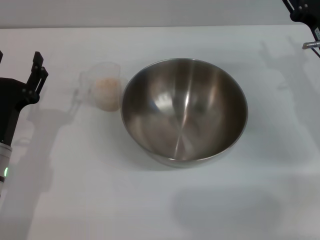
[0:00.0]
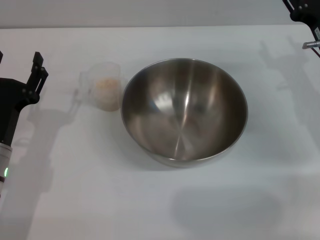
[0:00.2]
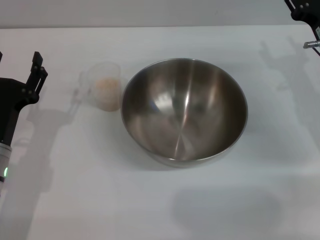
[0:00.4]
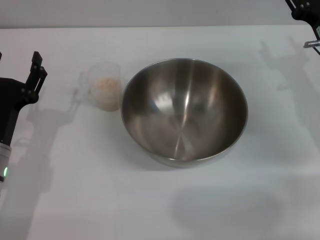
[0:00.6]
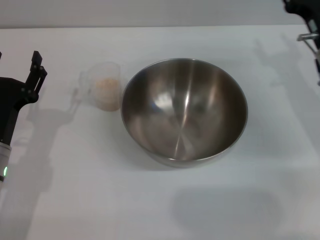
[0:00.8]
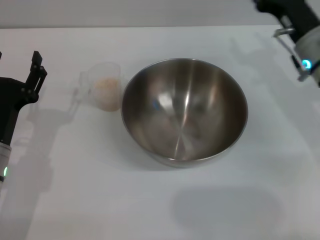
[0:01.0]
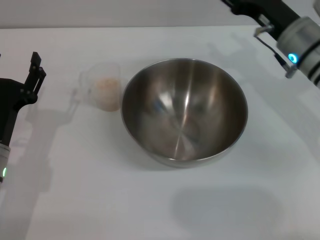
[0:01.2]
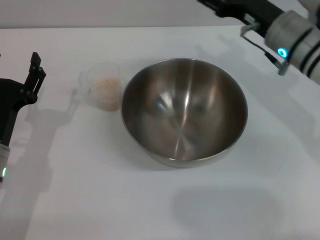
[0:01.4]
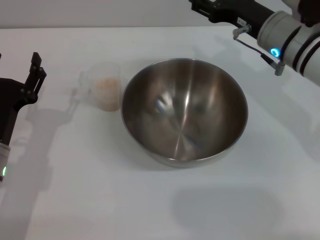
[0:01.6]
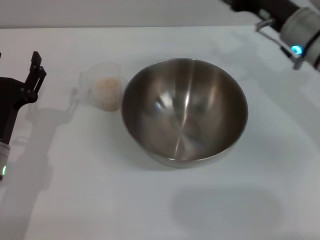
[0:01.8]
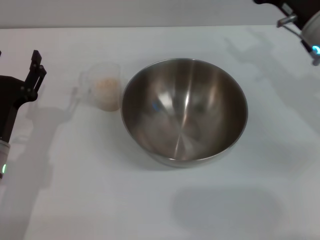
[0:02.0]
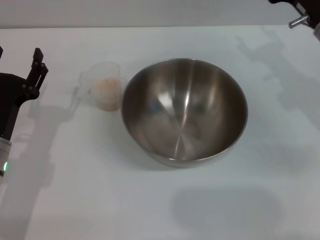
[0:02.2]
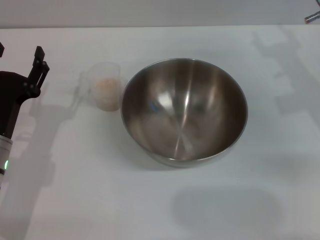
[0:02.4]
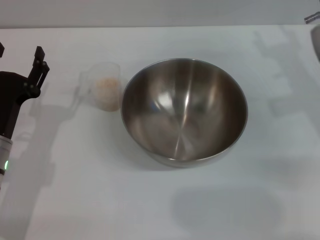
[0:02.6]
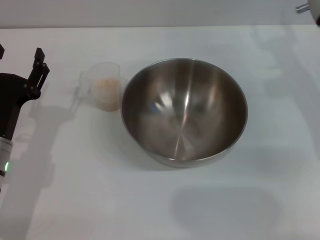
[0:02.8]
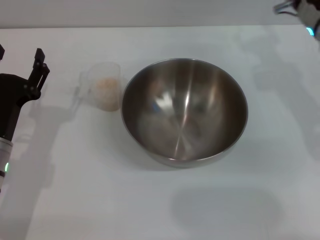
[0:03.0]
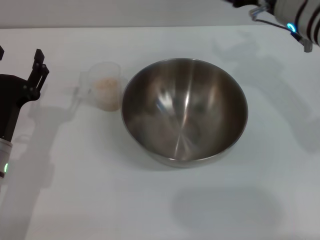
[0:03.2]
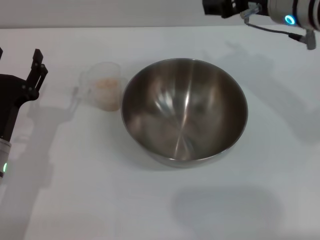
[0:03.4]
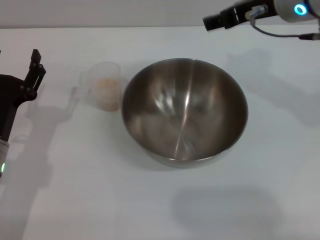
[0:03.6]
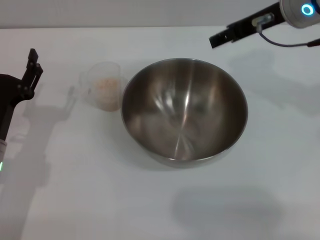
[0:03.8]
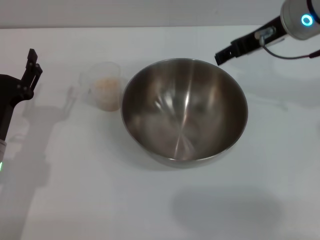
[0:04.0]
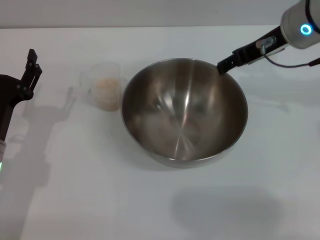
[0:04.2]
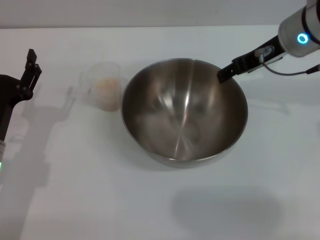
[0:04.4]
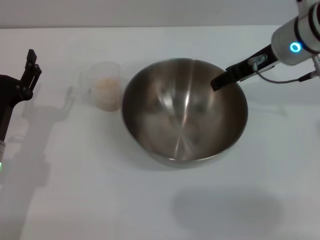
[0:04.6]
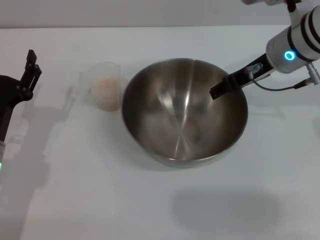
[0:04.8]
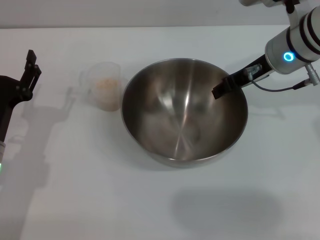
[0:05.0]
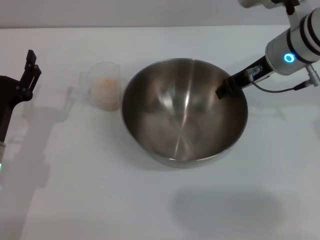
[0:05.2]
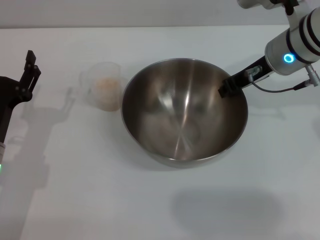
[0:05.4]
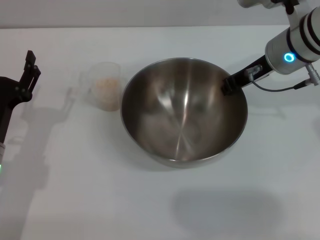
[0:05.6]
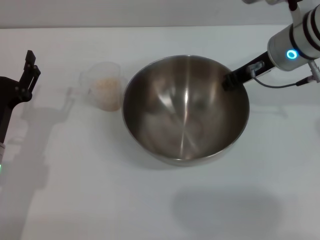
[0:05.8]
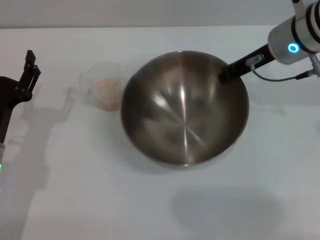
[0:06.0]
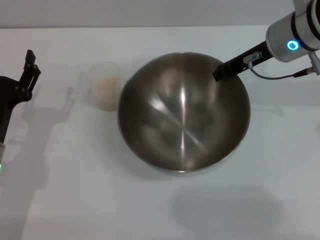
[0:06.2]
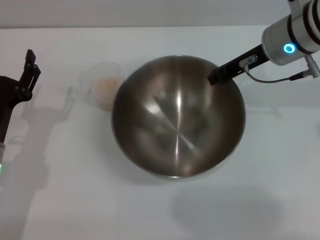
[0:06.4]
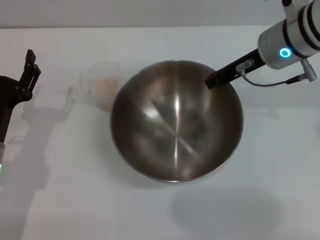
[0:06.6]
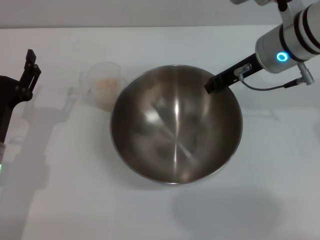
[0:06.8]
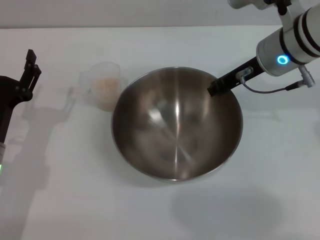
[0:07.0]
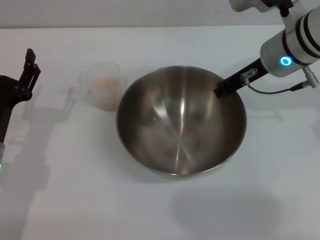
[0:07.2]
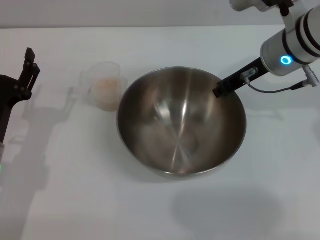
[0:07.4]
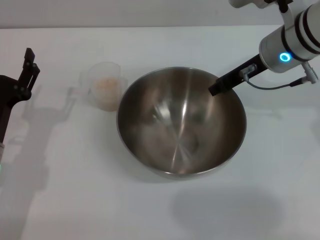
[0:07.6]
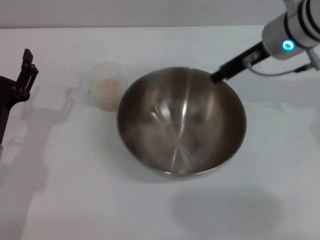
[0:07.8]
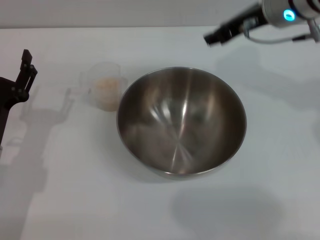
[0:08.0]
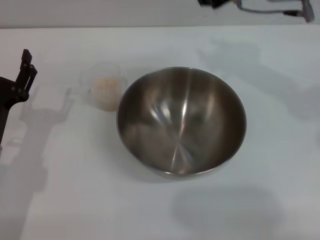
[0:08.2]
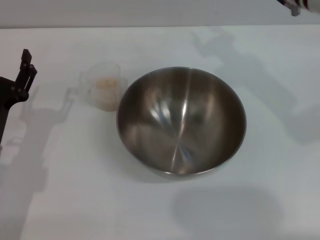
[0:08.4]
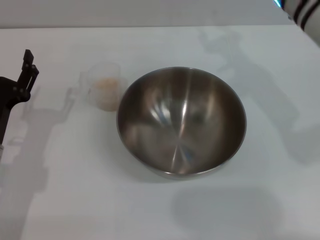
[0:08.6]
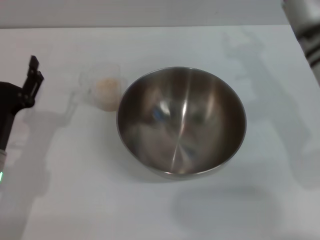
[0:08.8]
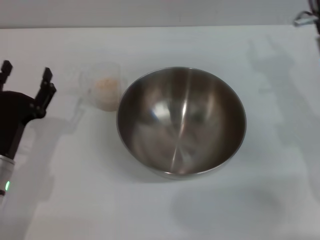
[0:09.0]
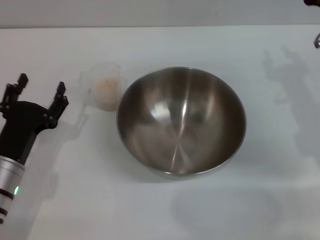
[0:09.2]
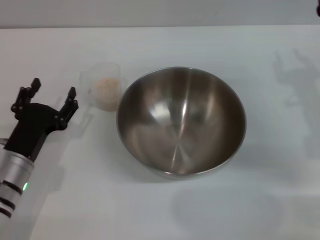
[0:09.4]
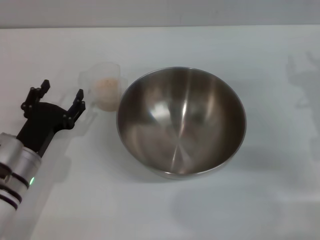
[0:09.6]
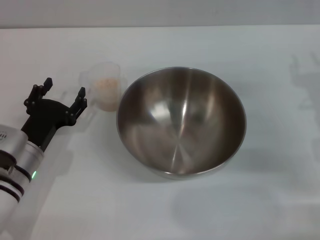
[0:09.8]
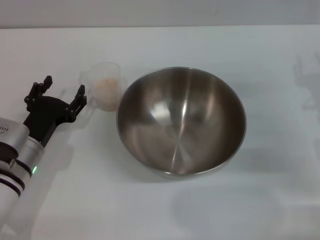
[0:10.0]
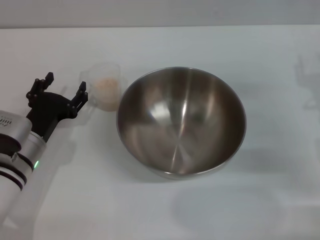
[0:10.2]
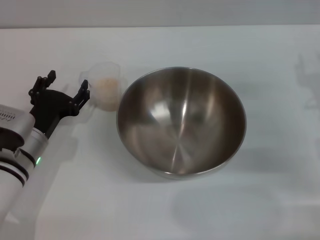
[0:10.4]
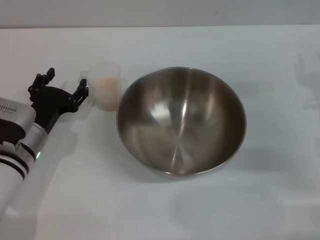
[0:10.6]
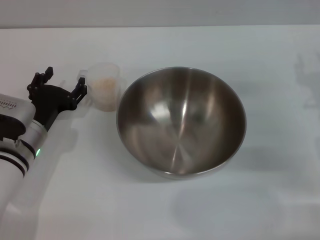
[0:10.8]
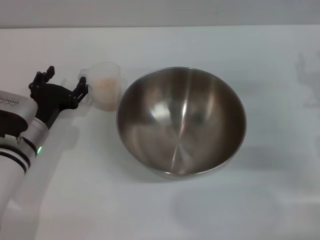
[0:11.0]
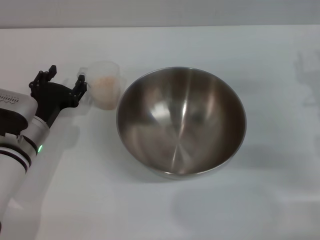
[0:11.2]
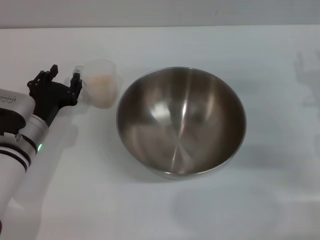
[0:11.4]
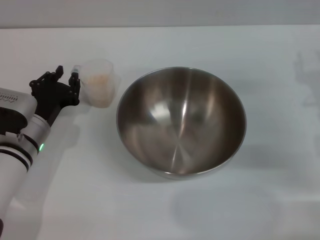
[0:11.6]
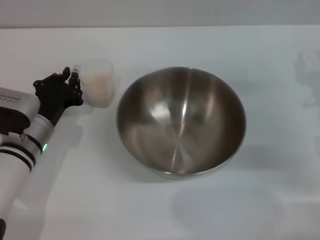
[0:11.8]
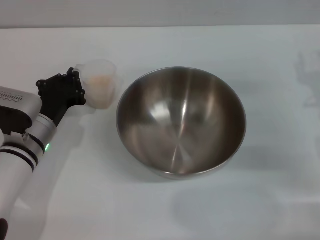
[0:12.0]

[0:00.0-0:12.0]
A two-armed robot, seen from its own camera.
Task of the whole recording: Place the bowl in the middle of the table with one hand and pour the rice from the grain cup into it with the other hand.
Step, 0:00.0 to 0:06.2: Pick up the bowl with the right gripper.
Step, 0:06.4 to 0:07.8: Place the bowl in the center of view with the right gripper.
0:00.0 to 0:01.6: The right gripper travels to the left and upward by roughly 10 cm.
0:04.4 to 0:06.0: The right gripper closes up.
0:06.0 to 0:07.6: There are only small adjustments of the grippers.
0:07.6 to 0:09.0: The right gripper travels backward and to the right by roughly 10 cm, and opens its fingers.
0:09.0 to 0:10.4: The right gripper shifts approximately 5 cm to the right; the left gripper travels forward by about 5 cm.
0:10.4 to 0:12.0: The left gripper closes.

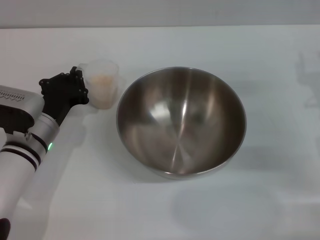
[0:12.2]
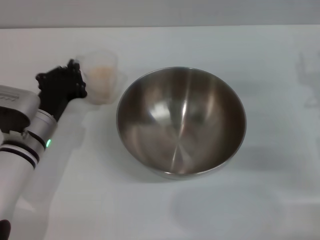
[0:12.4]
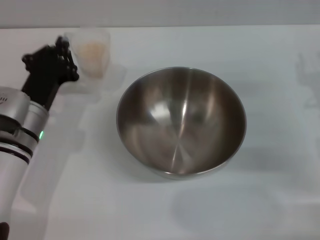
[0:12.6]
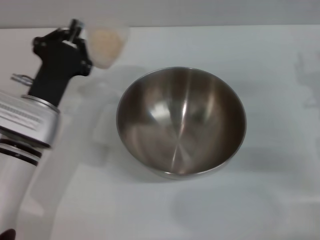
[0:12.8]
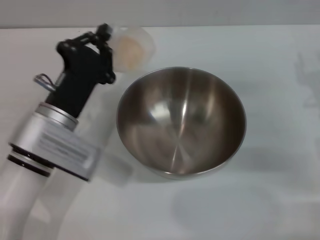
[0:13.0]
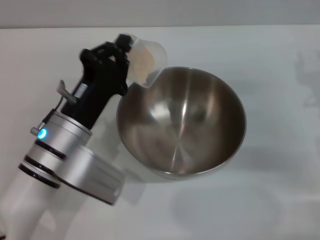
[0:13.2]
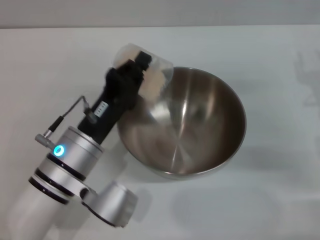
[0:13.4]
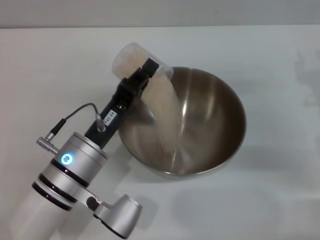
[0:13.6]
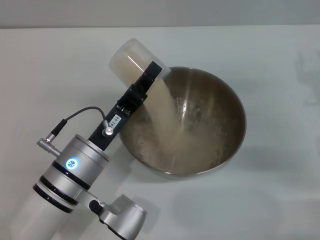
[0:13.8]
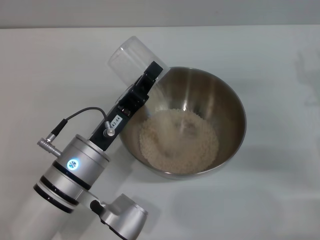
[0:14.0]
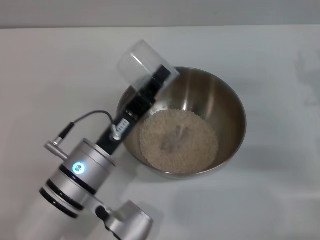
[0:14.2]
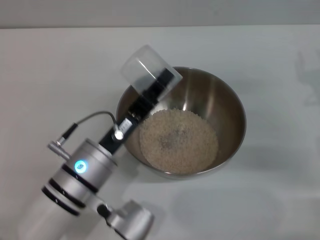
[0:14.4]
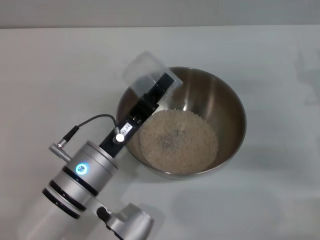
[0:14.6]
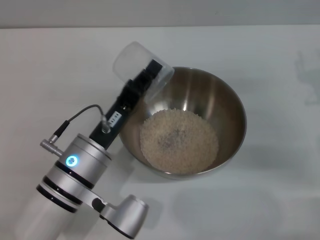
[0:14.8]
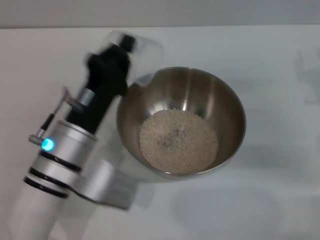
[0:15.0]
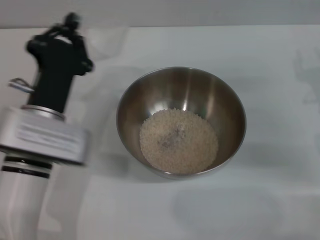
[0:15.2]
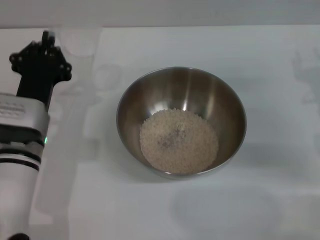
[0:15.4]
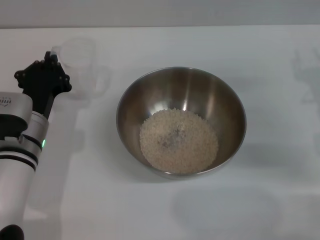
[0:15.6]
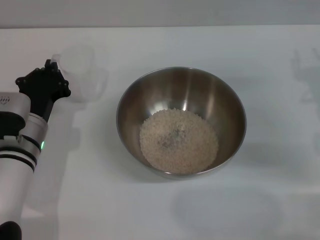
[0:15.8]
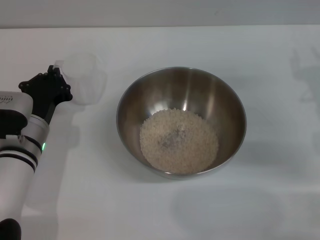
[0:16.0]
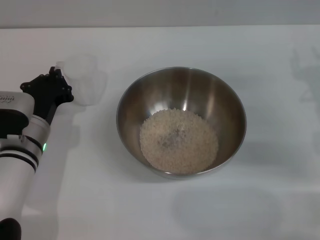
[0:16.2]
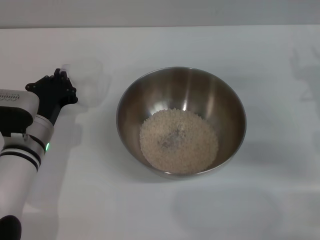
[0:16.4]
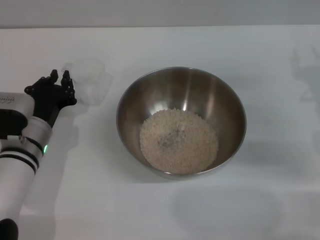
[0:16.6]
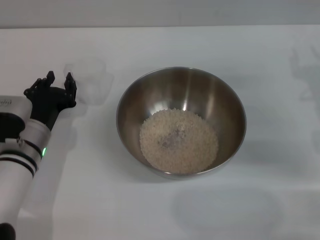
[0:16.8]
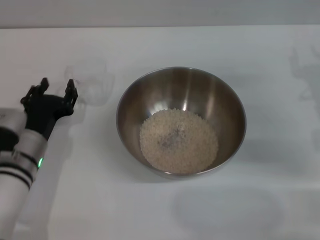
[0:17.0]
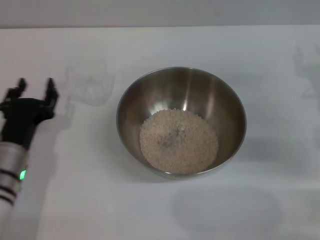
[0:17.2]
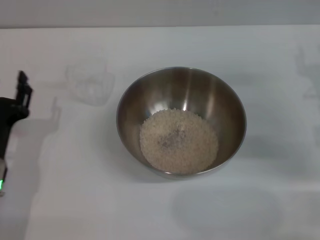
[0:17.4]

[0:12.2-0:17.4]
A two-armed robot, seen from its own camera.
Task of the whole recording: Place the bowl in the middle of the table with one hand and pour the rice from the grain cup into it with the other hand.
Step, 0:12.8 to 0:14.4: Pour the rice from the cup into the bowl with the left gripper.
Step, 0:14.6 to 0:17.0: Place the cup on the table with the left gripper.
0:12.2 to 0:14.0: The left gripper travels to the right and backward by some 10 cm.
0:14.0 to 0:15.6: The left gripper goes approximately 10 cm to the left and forward.
0:15.6 to 0:17.4: The left gripper goes roughly 10 cm backward and to the left, and opens up.
